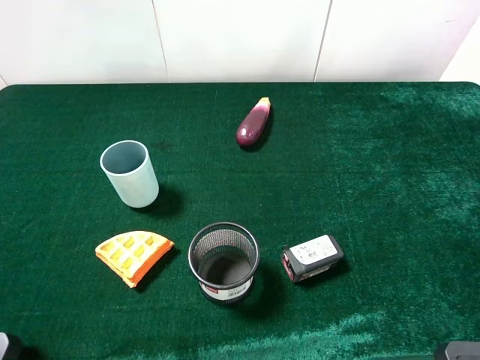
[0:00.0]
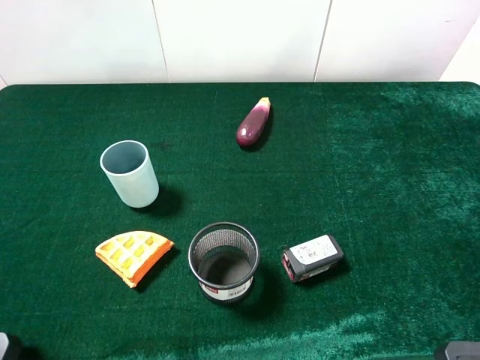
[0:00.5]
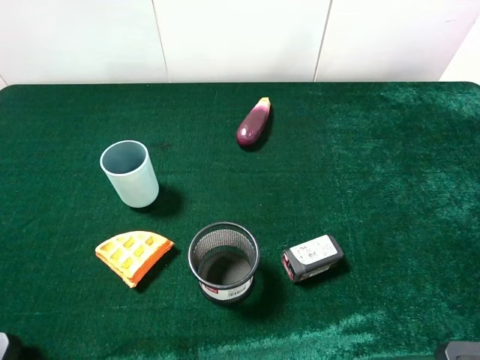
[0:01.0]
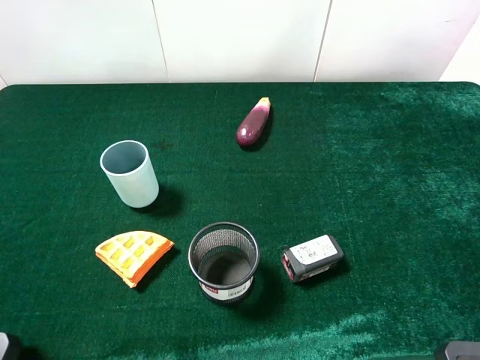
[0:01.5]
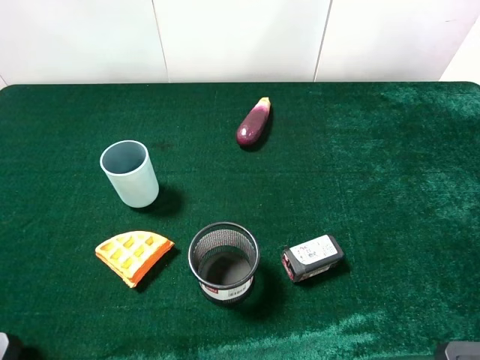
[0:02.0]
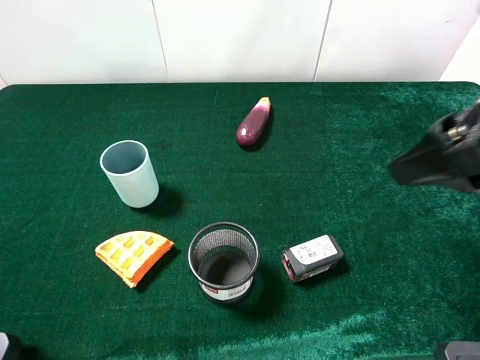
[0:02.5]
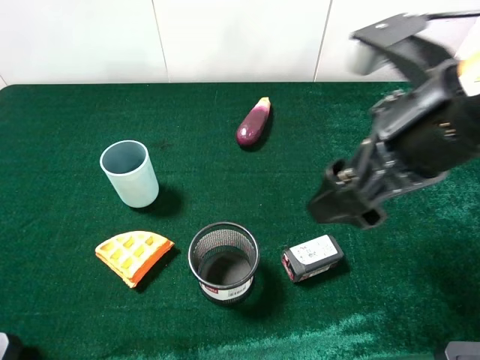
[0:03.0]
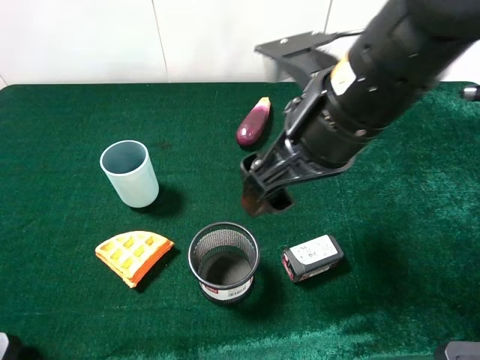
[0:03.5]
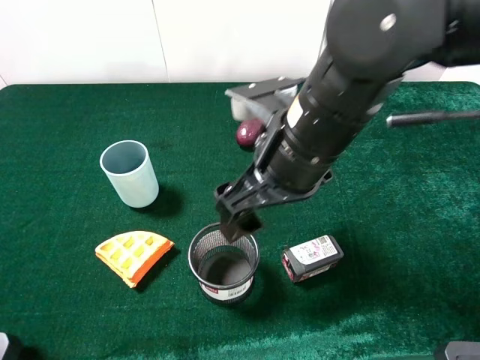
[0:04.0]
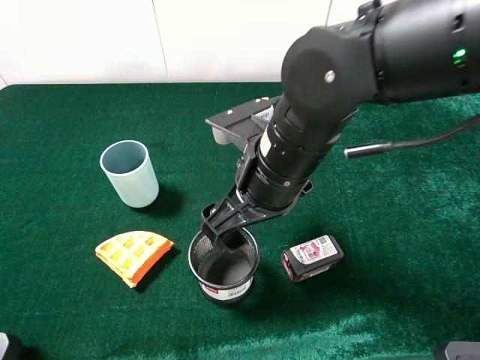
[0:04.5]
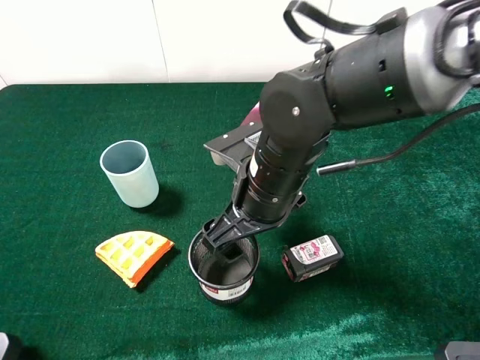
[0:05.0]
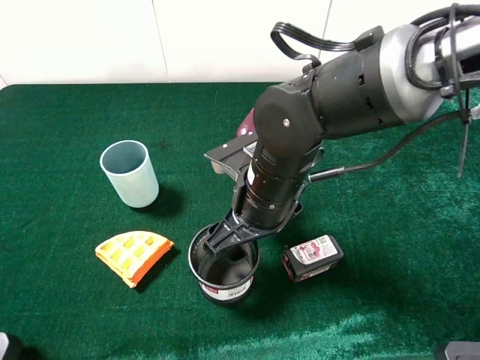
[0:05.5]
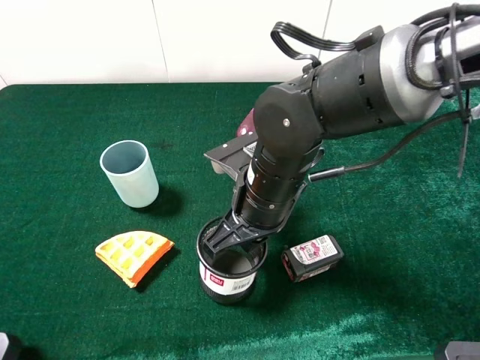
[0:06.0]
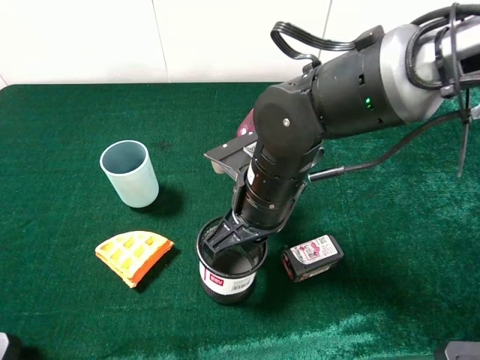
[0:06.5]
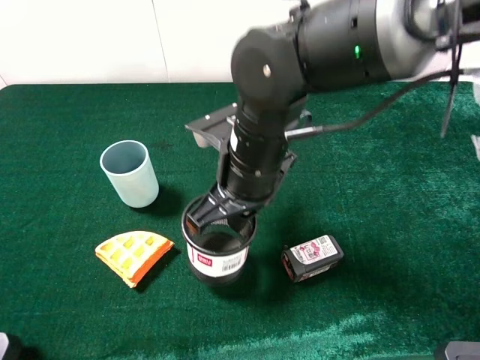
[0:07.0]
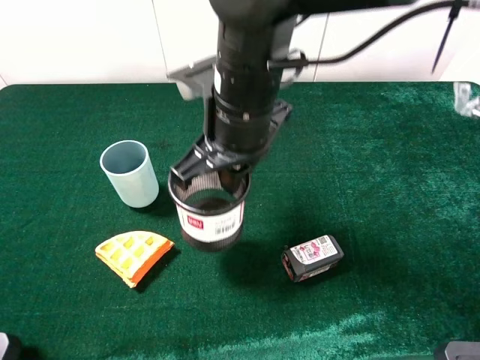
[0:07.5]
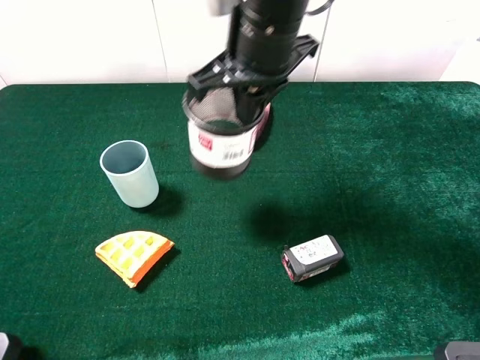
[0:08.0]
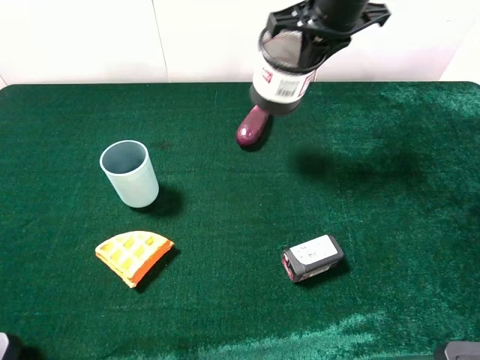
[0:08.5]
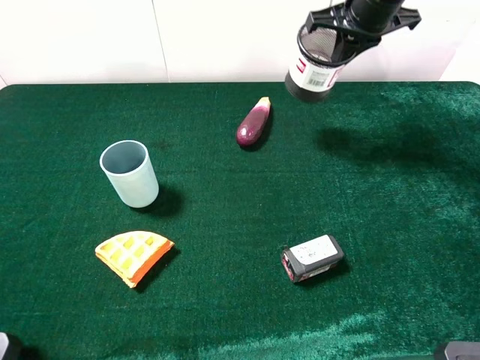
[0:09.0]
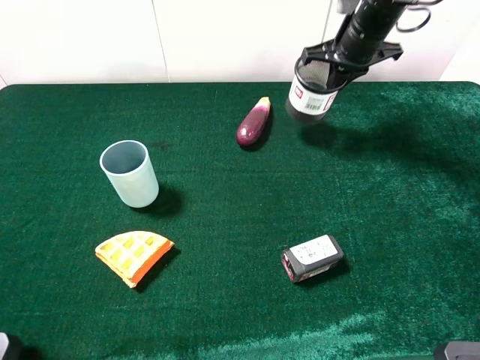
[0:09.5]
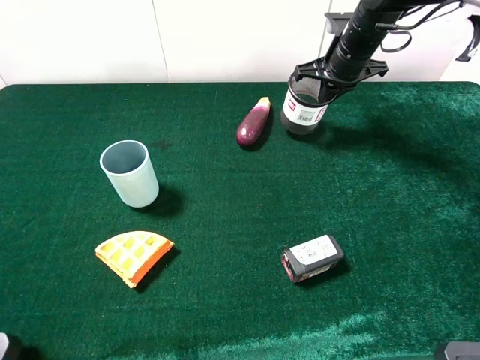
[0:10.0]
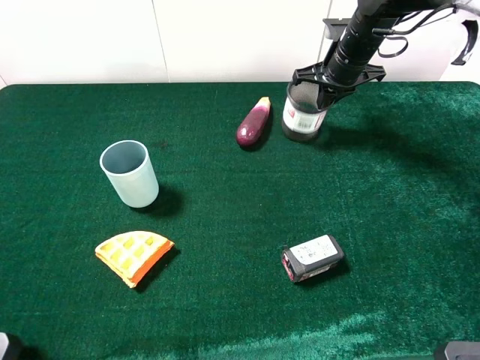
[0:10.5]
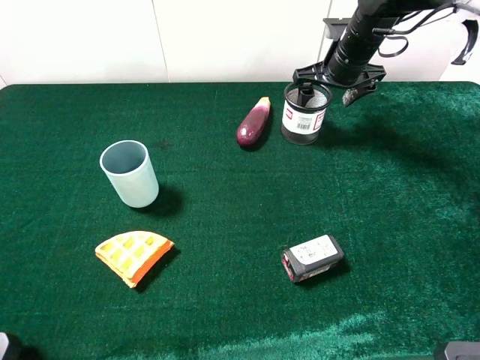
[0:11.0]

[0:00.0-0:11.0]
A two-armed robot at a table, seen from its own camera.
Task of the whole recording: the gripper move the object.
Step, 0:00.0 to 0:06.0: Grasp the pen container with the right gripper.
Step, 0:06.5 to 0:10.5: Place the pen container on the table with the right gripper.
0:02.0 to 0:03.5: The right gripper is displaced to the left and downward by approximately 20 cm.
0:03.5 to 0:05.5: The right gripper shifts roughly 10 cm downward.
0:05.5 to 0:07.5: The right gripper travels upward by approximately 10 cm, and closes up.
0:07.5 to 0:09.0: The right gripper goes approximately 25 cm forward and to the right.
0:09.0 to 0:11.0: The right gripper heads downward, covering some 10 cm, and opens its fingers.

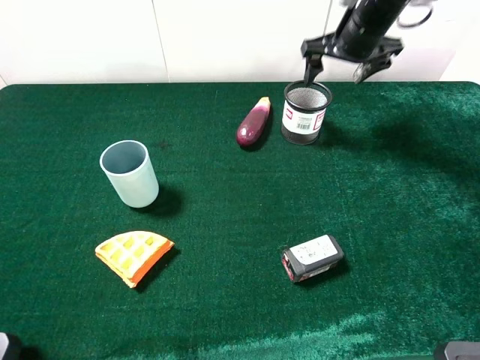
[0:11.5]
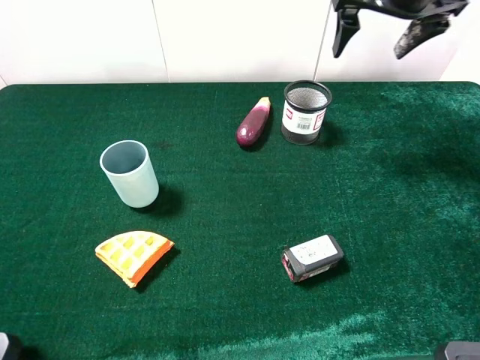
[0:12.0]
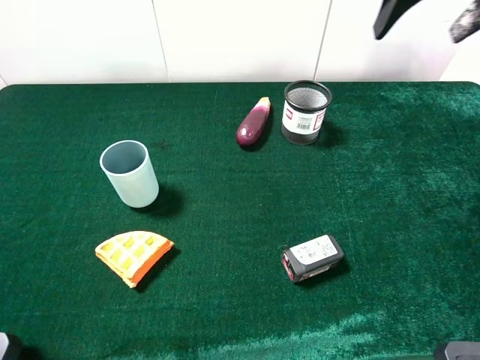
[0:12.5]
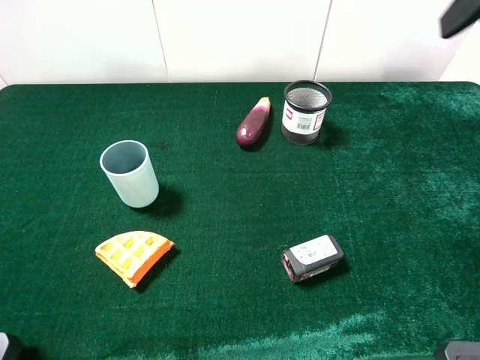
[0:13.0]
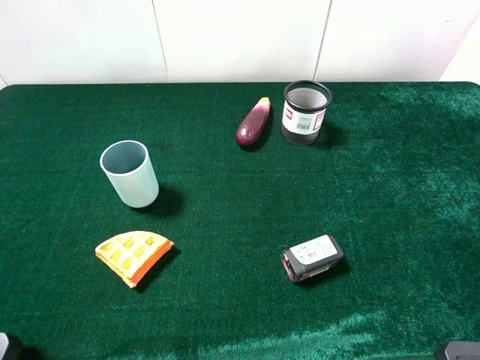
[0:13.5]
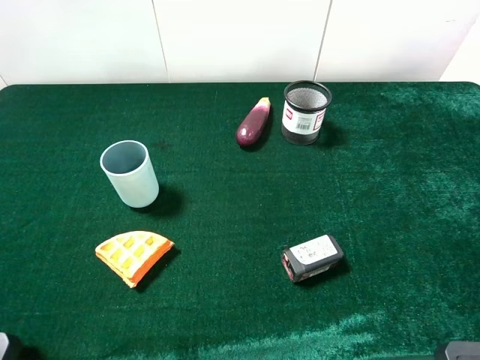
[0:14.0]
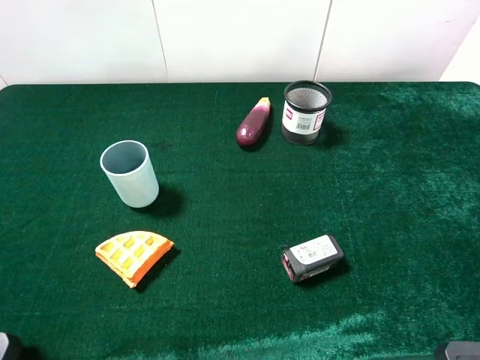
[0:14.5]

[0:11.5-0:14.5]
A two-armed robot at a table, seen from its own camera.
Task of the whole recording: the gripper move the object.
0:11.5 to 0:13.0: The right gripper shifts approximately 30 cm backward and upward.
0:13.0 to 0:14.5: The right gripper travels backward and downward by some 20 cm.
